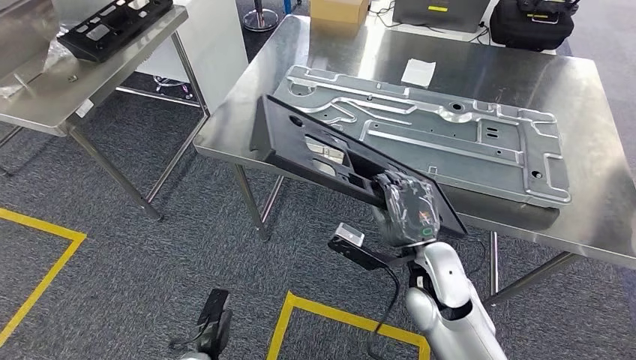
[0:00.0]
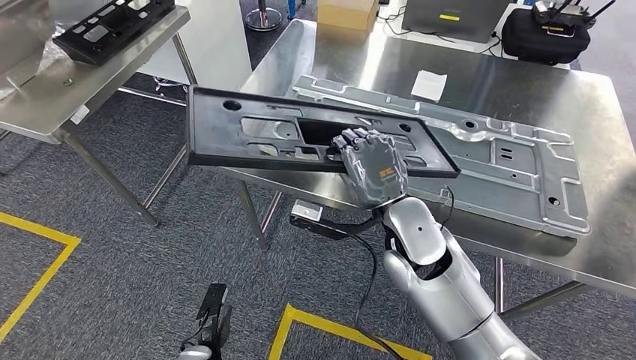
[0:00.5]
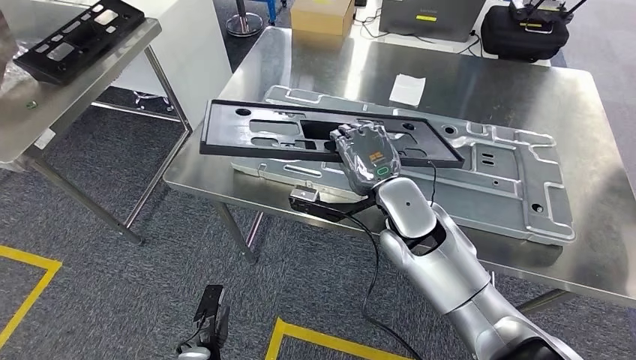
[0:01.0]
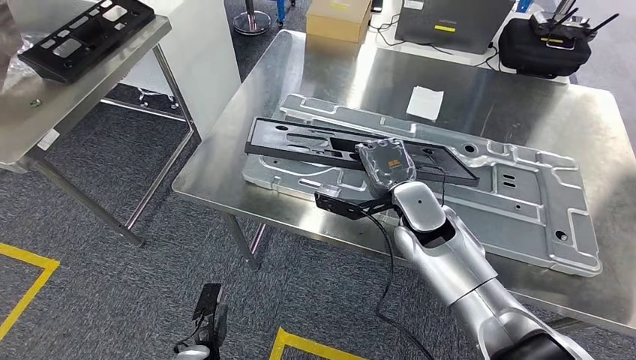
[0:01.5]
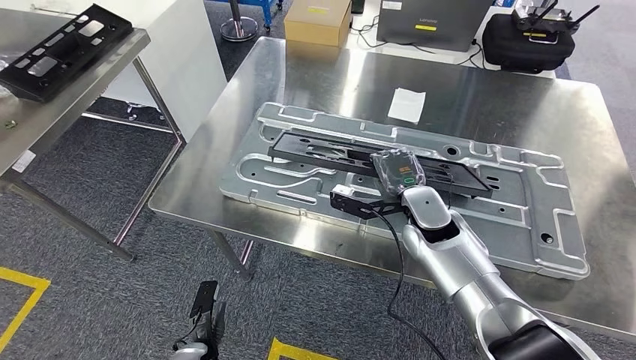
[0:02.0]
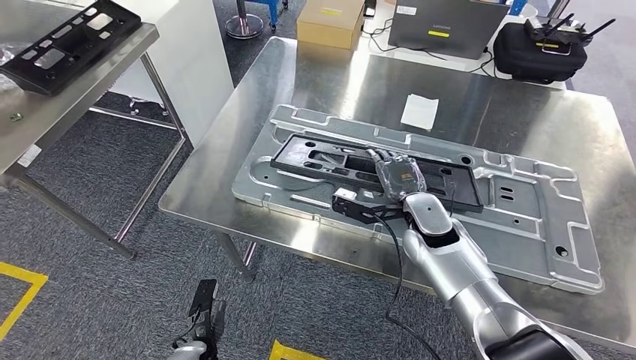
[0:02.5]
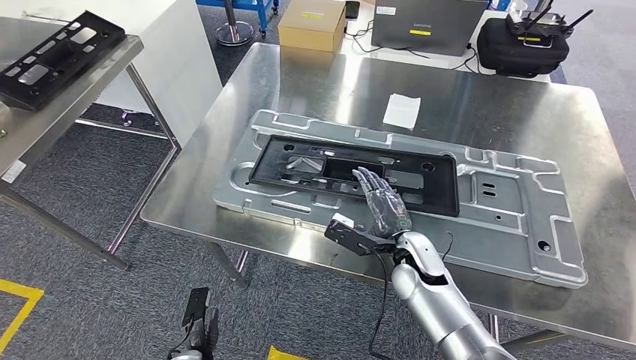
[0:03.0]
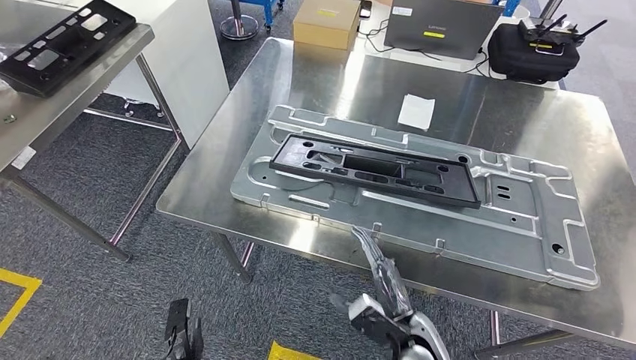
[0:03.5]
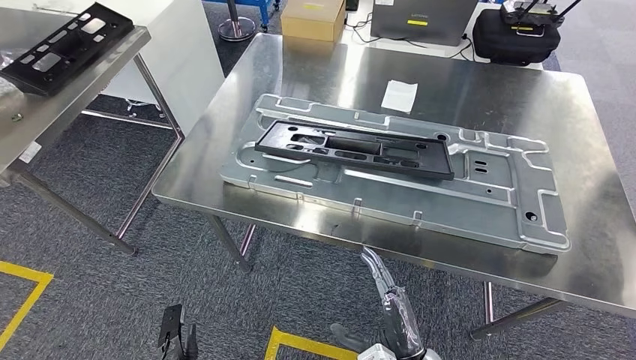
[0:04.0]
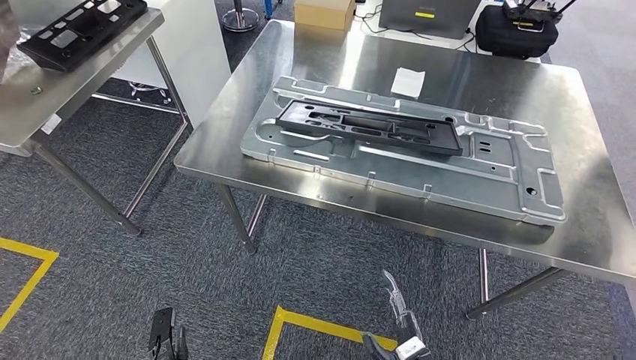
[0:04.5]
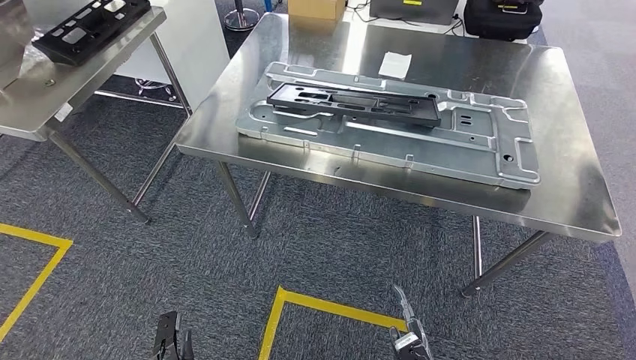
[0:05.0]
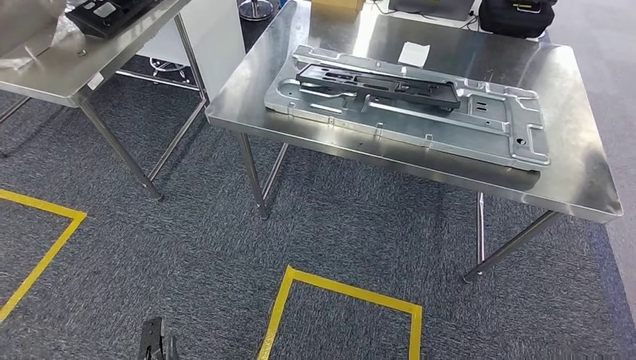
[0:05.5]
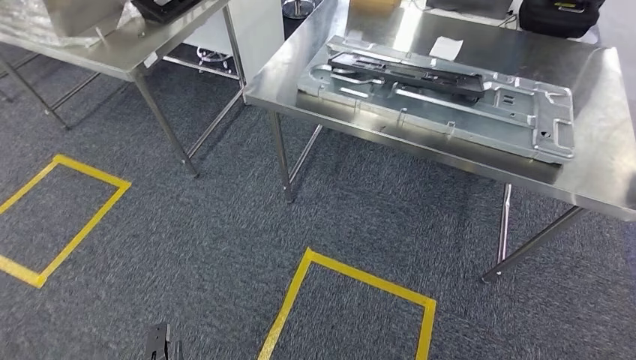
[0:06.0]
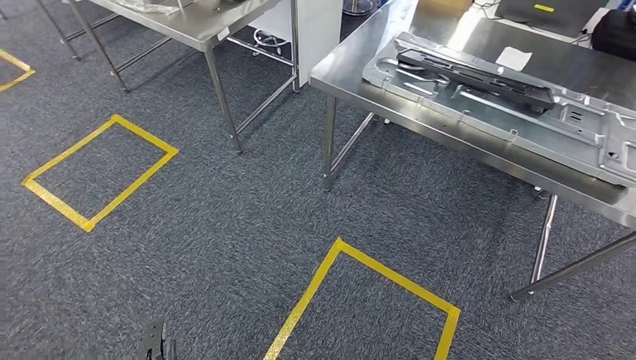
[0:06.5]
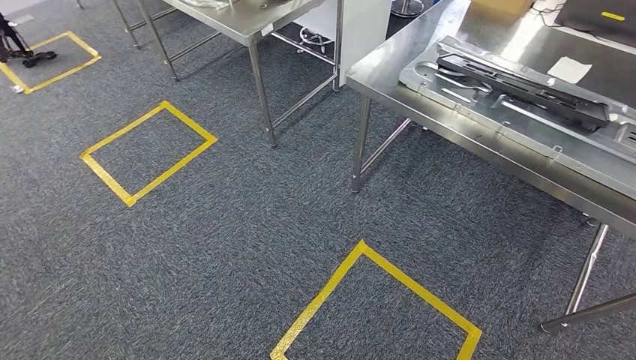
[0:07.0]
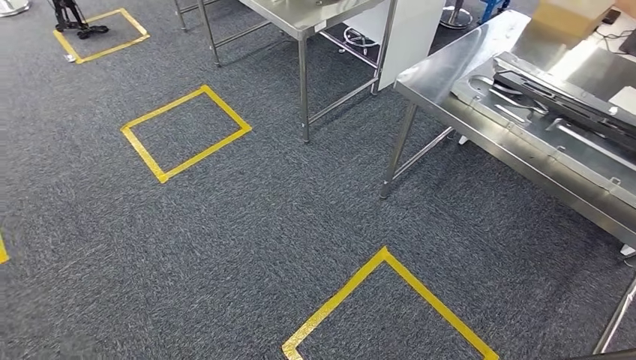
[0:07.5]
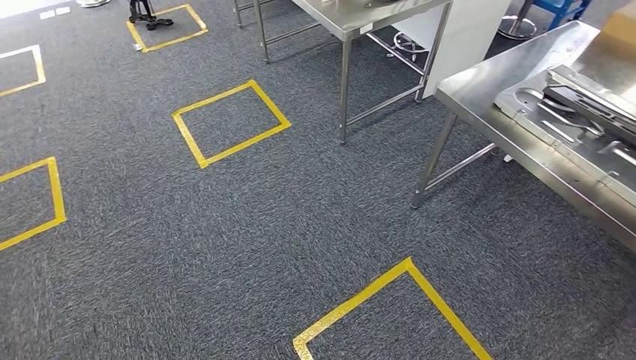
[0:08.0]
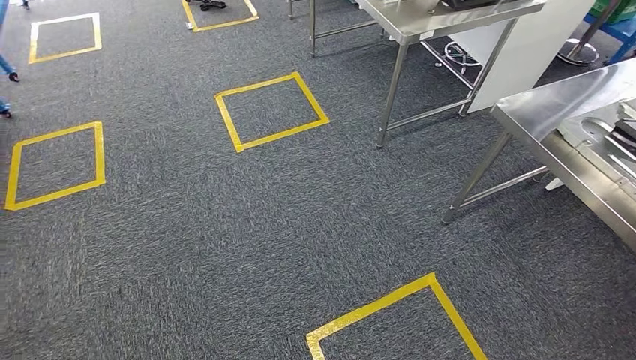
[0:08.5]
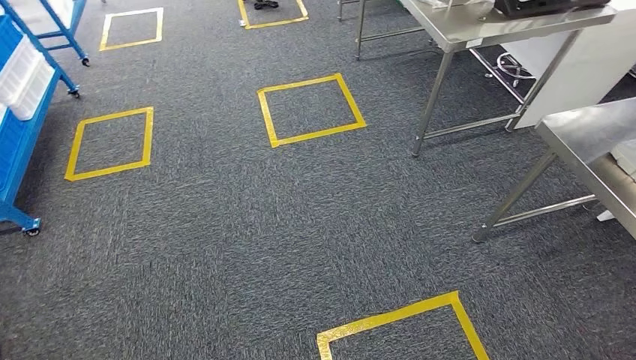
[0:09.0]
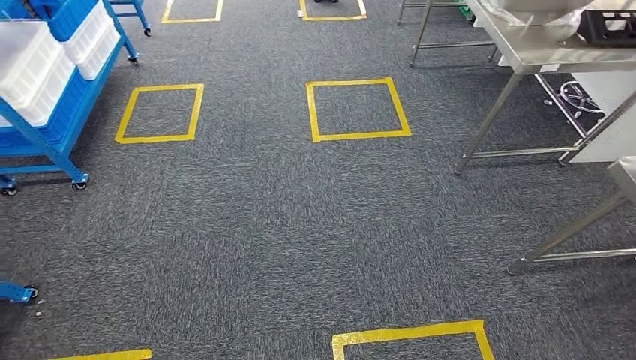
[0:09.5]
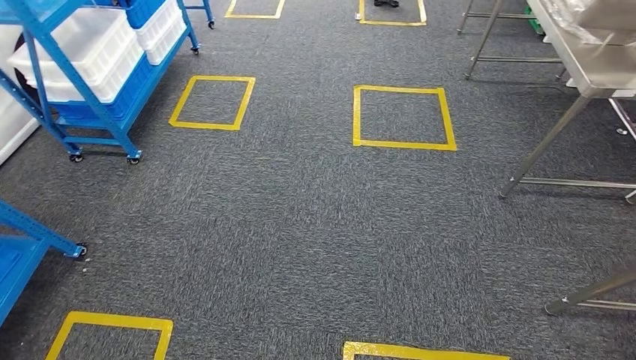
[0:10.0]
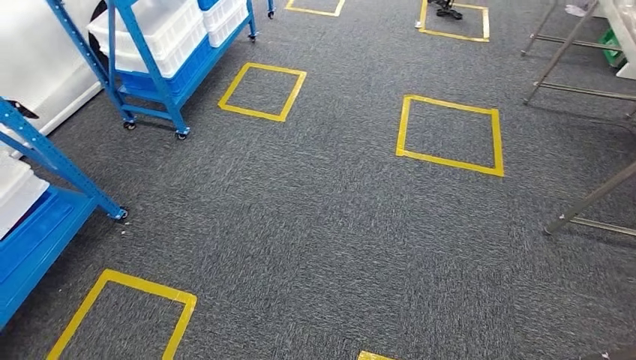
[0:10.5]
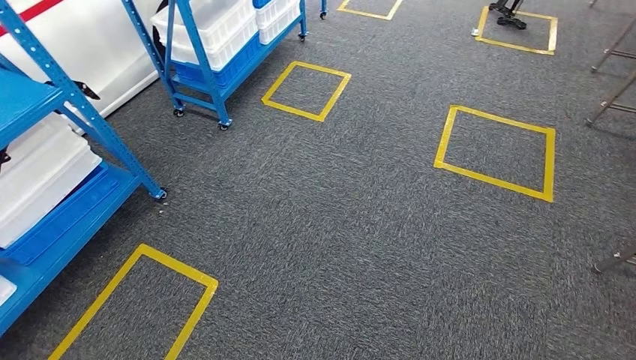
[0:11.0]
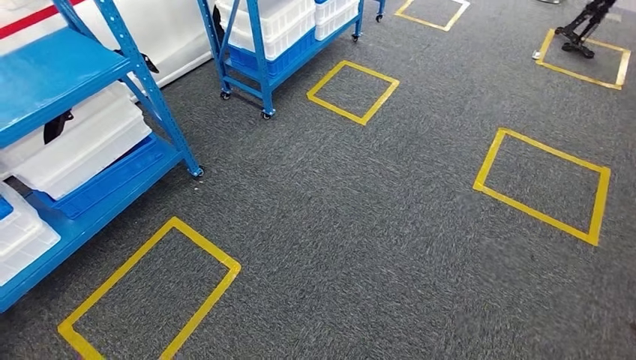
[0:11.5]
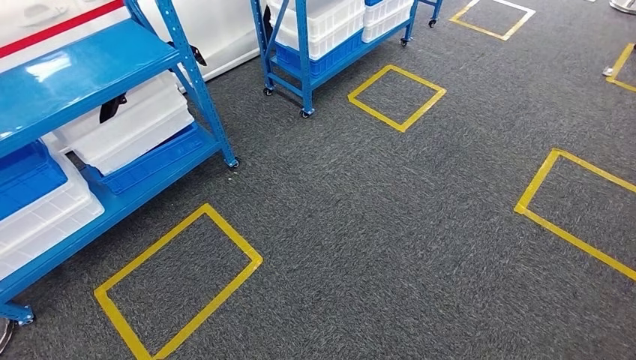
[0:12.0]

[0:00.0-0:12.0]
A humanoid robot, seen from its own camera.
Step, 0:00.0 to 0:05.5: Insert the large parts into the corresponding slots on the workbench.

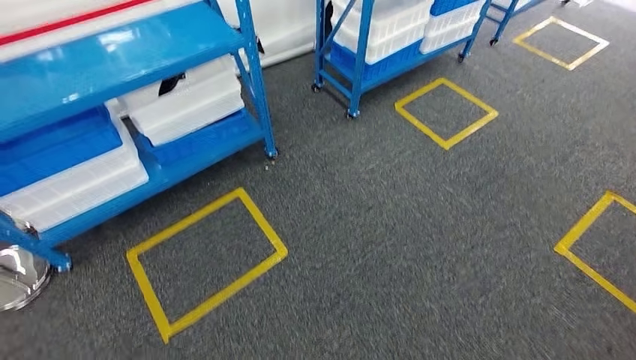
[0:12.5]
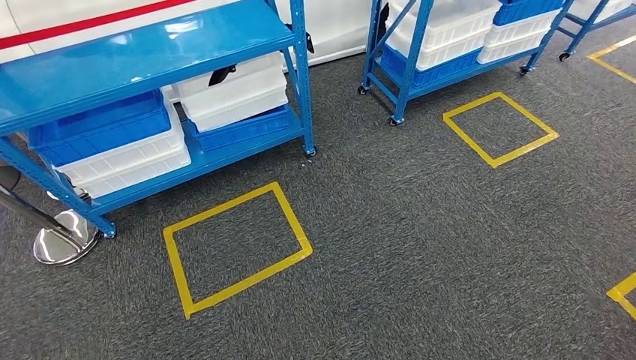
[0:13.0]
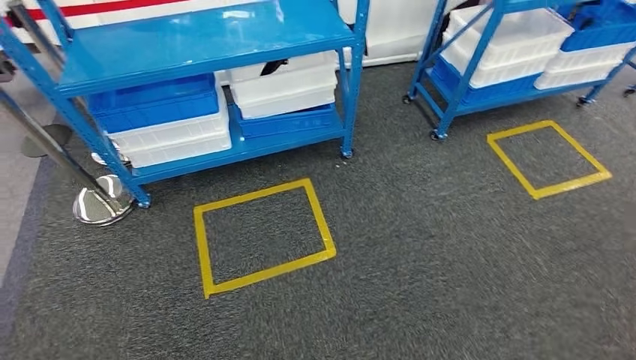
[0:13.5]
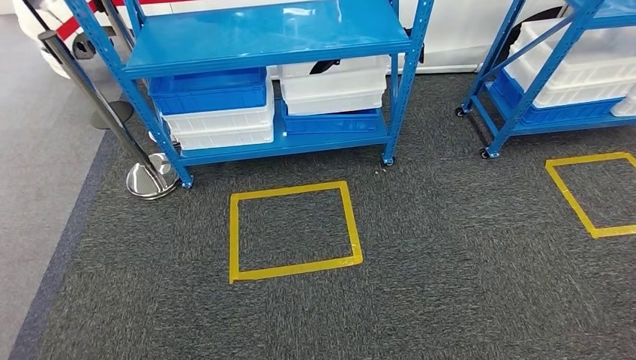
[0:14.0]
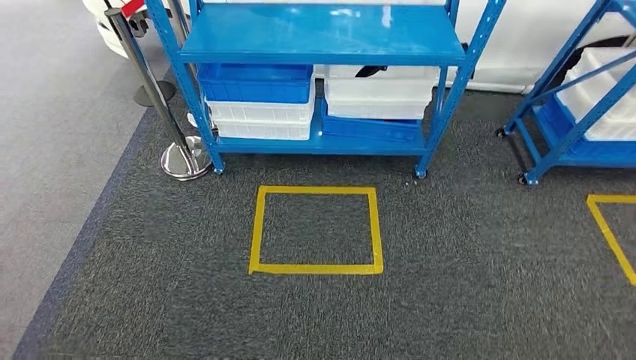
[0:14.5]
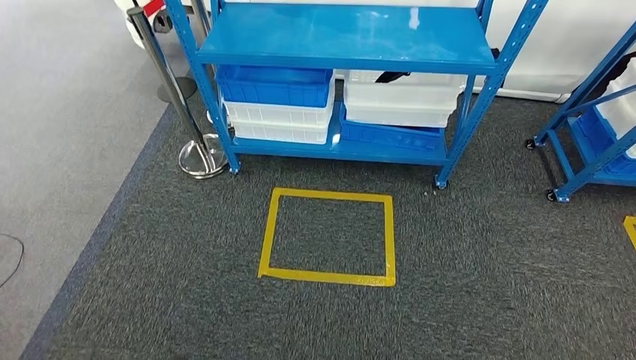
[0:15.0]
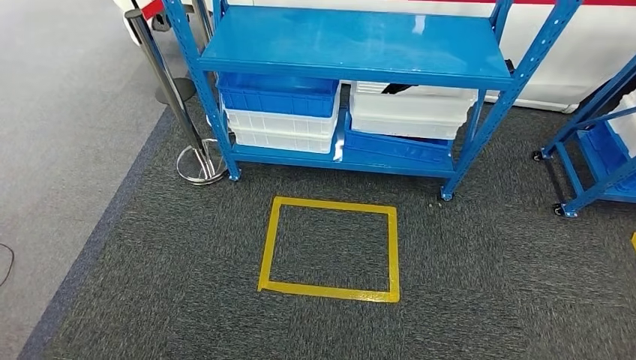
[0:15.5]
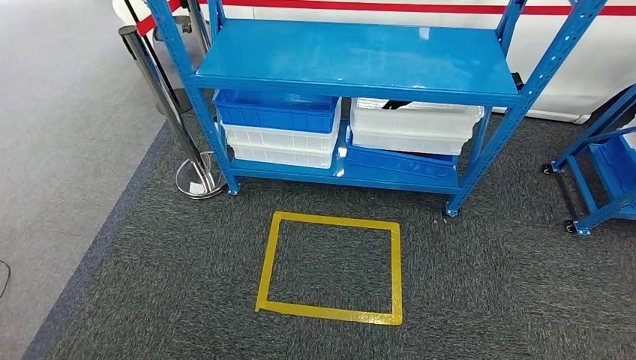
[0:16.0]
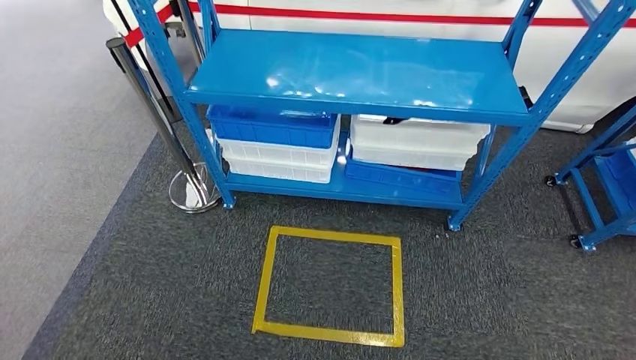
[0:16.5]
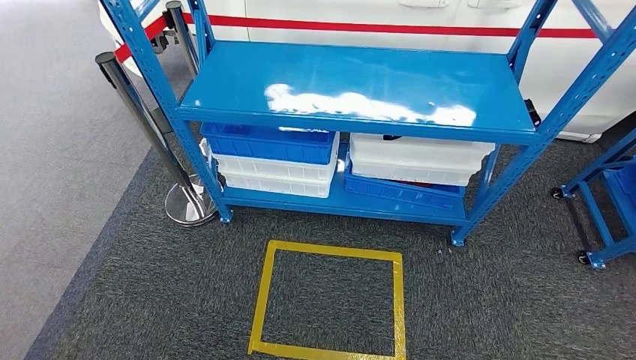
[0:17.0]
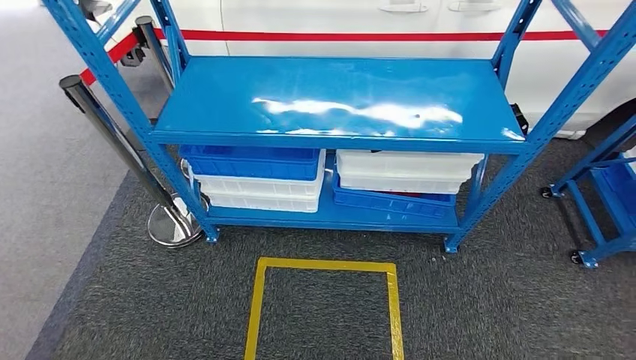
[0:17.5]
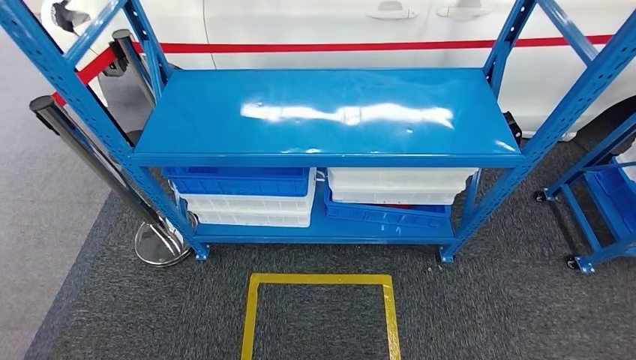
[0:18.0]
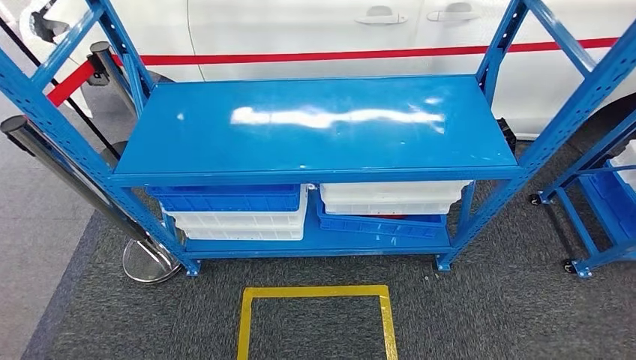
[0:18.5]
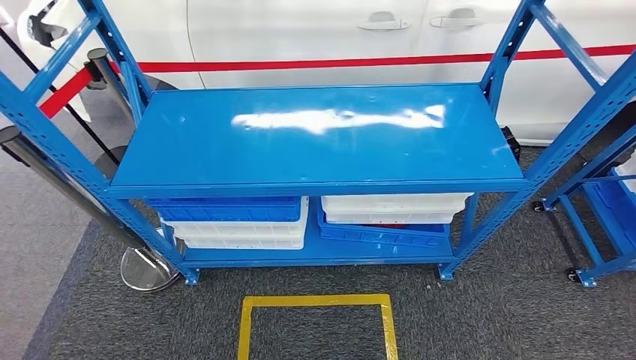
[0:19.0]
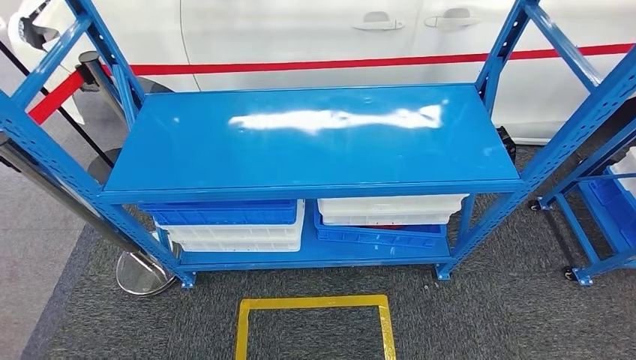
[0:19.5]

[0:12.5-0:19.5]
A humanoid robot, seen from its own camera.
Step, 0:12.5 to 0:19.5: Return to the initial position at the shelf.
